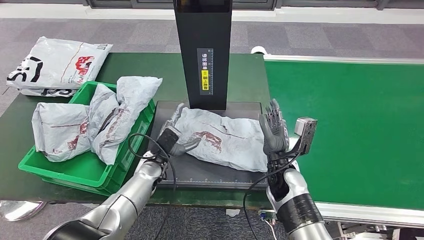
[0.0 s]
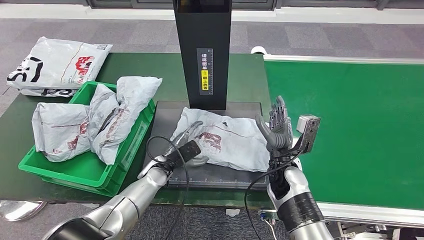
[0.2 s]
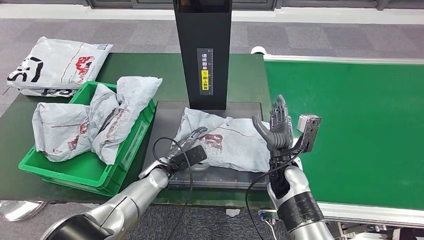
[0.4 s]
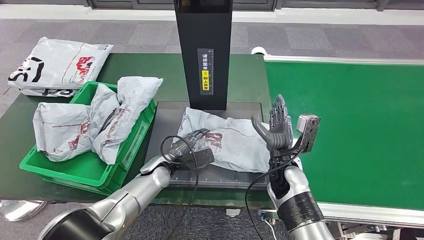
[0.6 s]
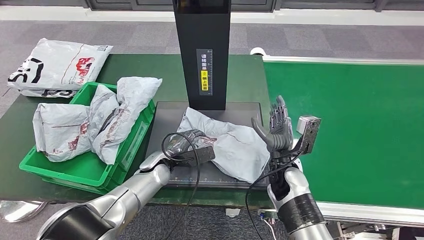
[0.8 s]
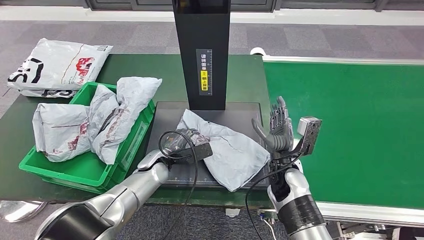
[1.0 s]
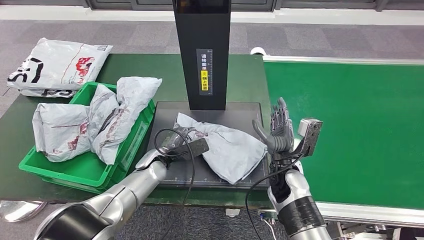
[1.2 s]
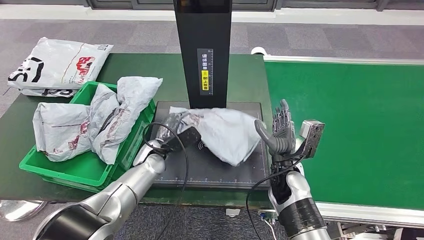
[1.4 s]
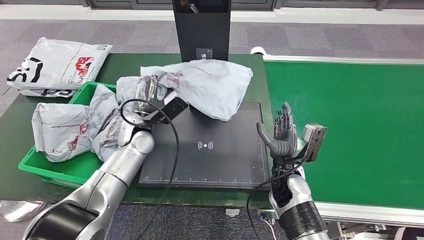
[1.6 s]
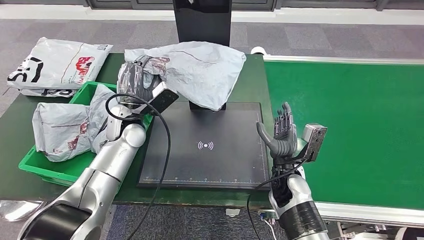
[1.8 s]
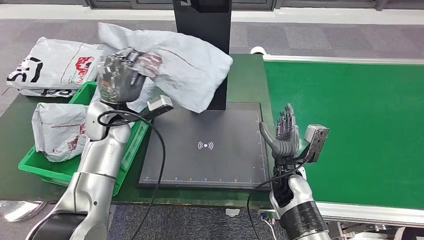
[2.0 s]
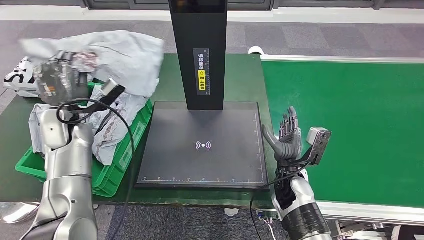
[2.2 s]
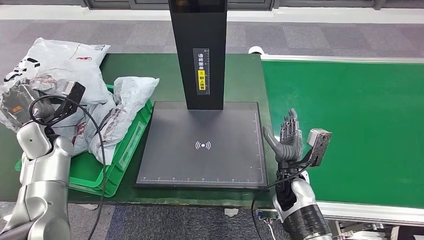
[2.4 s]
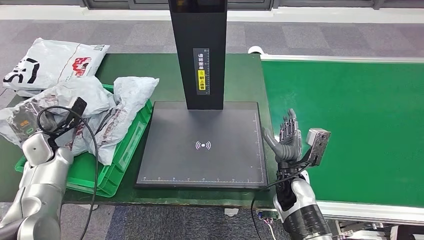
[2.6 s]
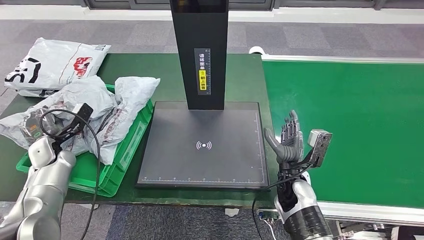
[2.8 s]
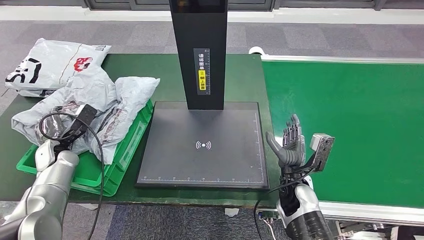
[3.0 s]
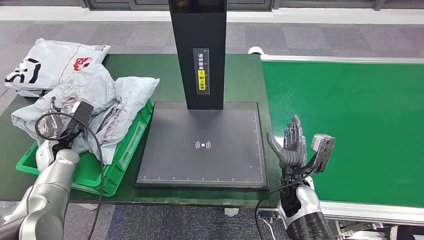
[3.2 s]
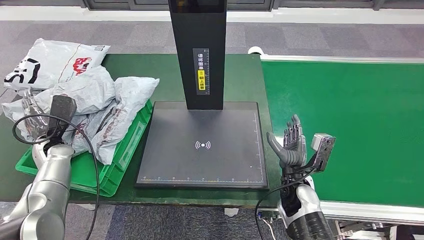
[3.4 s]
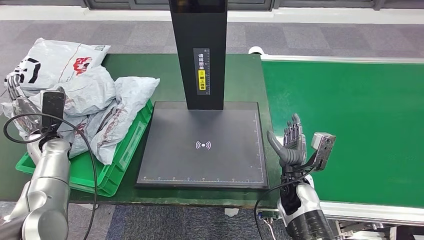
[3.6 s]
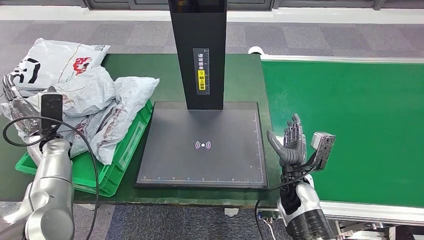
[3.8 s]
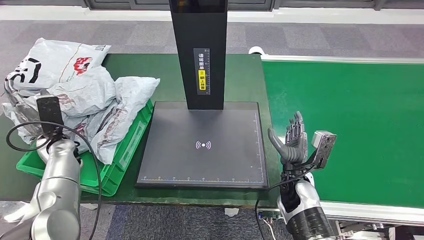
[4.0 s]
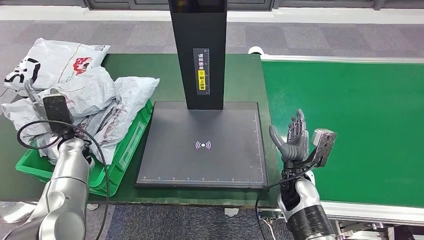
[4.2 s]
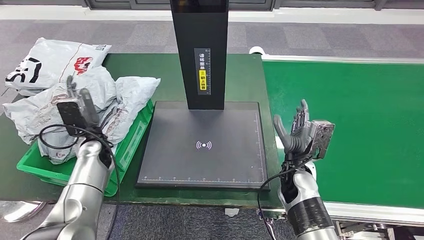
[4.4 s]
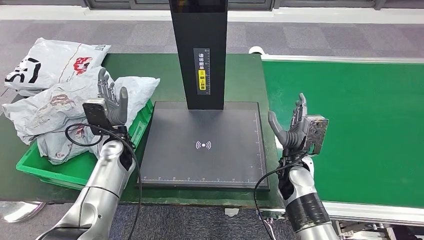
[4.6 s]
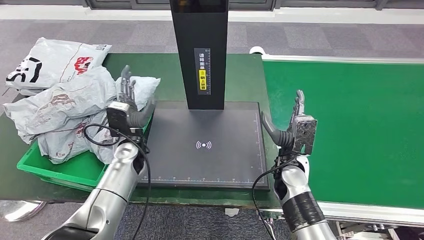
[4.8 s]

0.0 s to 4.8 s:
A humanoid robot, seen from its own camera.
Step, 0.0 to 2.2 s: Pick up the parcel from the inbound machine.
Step, 2.4 to 4.8 s: Place the parcel into the delivery box.

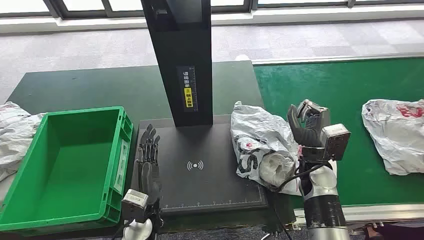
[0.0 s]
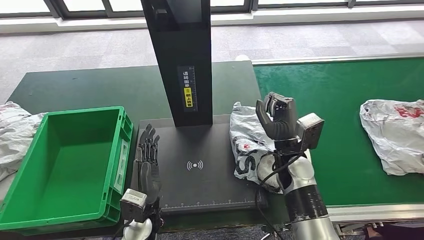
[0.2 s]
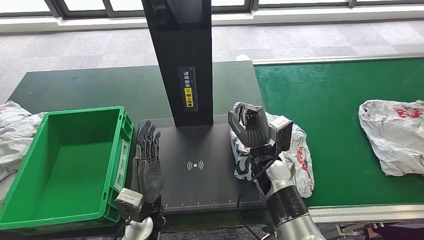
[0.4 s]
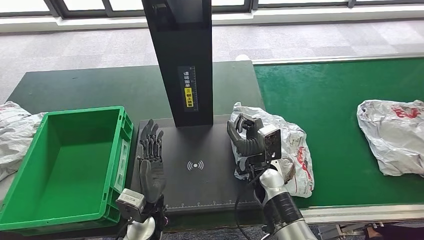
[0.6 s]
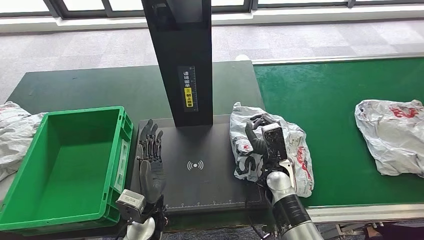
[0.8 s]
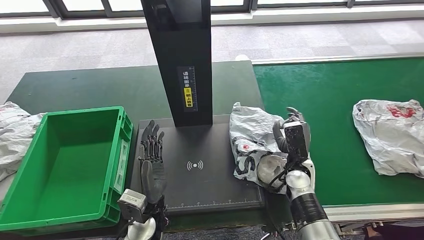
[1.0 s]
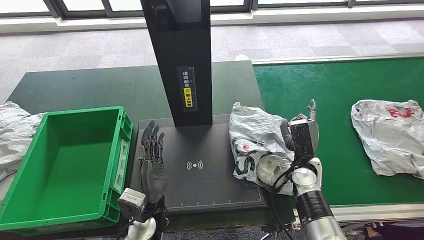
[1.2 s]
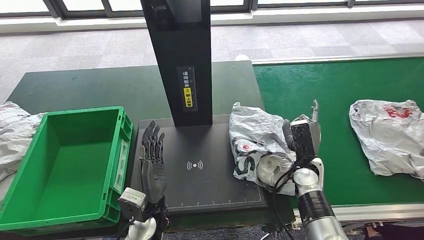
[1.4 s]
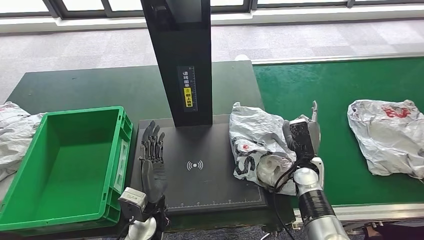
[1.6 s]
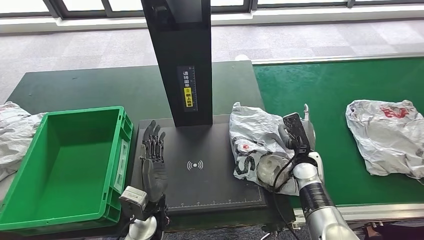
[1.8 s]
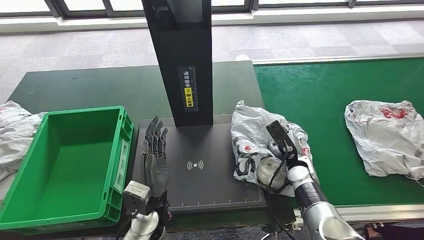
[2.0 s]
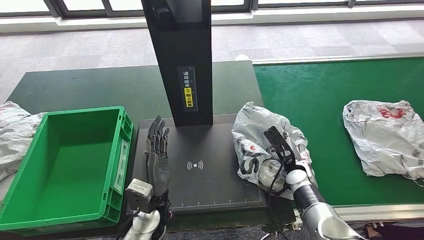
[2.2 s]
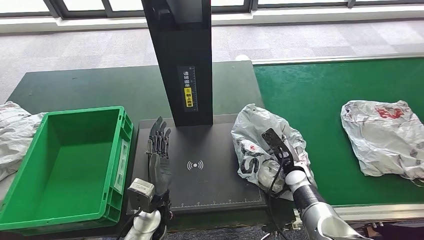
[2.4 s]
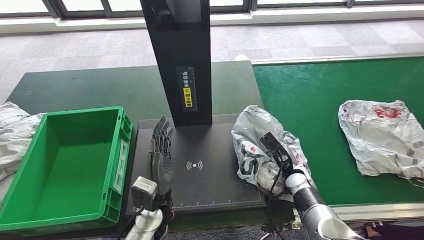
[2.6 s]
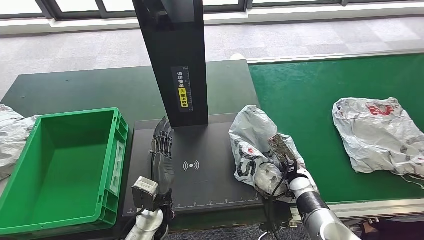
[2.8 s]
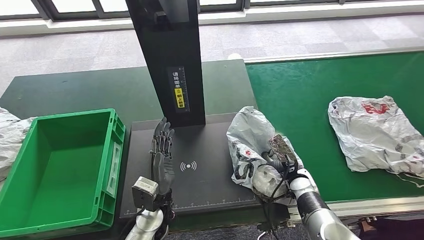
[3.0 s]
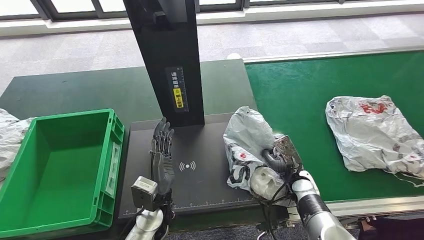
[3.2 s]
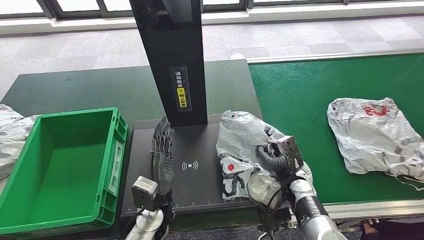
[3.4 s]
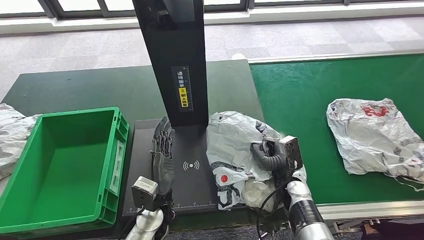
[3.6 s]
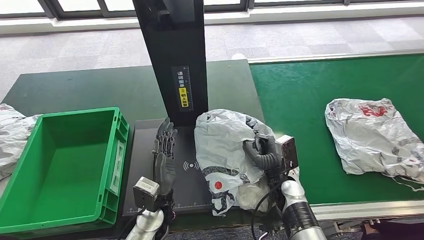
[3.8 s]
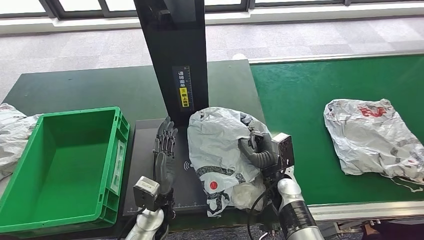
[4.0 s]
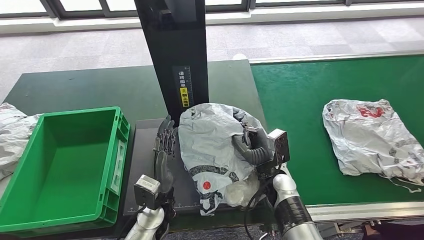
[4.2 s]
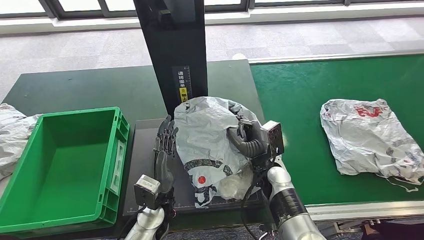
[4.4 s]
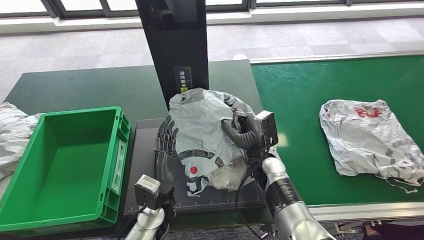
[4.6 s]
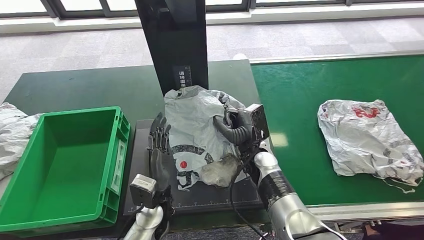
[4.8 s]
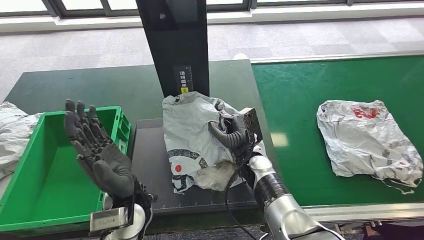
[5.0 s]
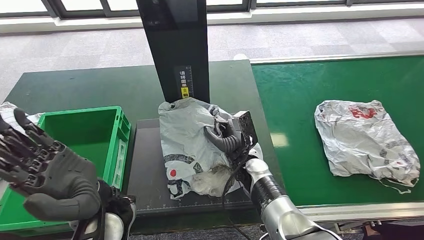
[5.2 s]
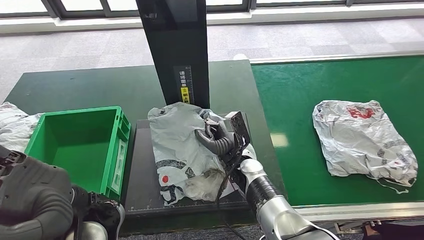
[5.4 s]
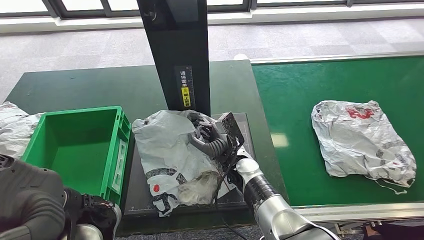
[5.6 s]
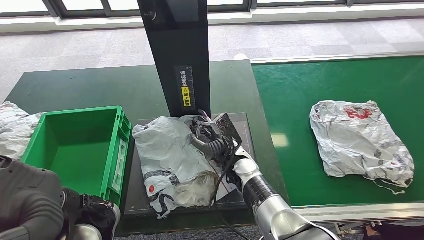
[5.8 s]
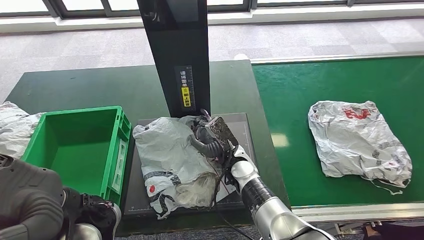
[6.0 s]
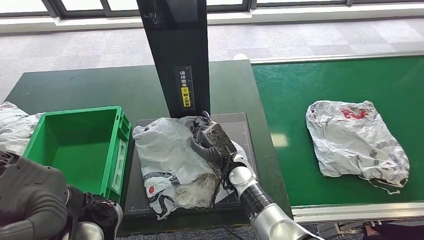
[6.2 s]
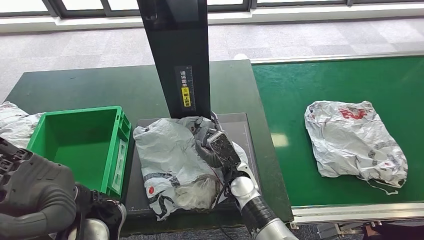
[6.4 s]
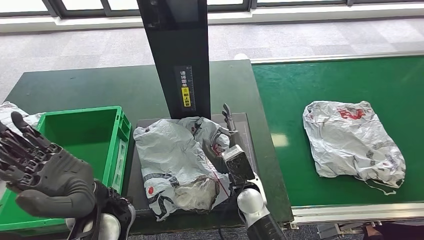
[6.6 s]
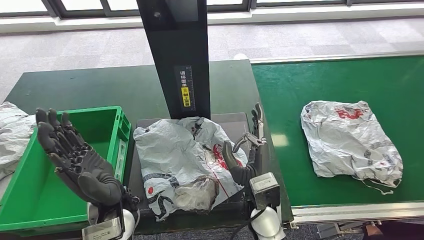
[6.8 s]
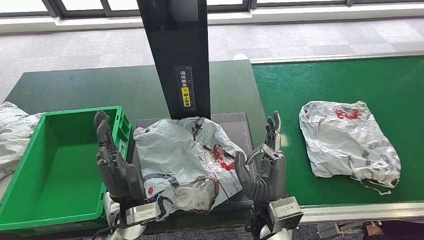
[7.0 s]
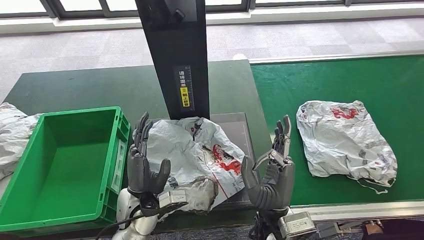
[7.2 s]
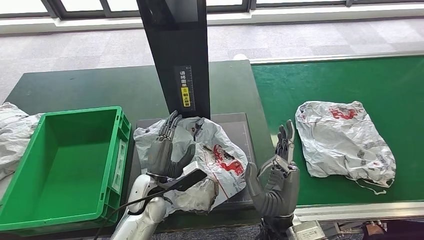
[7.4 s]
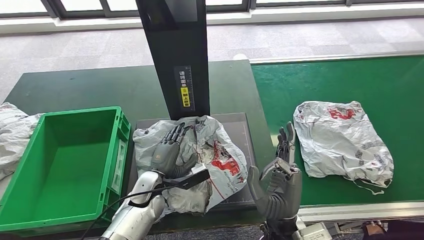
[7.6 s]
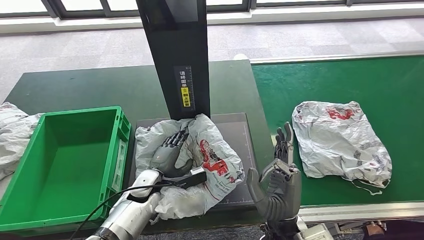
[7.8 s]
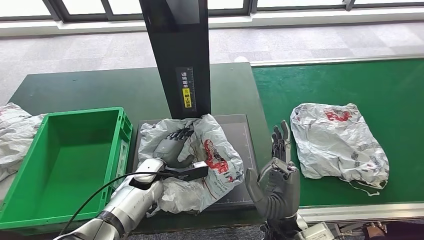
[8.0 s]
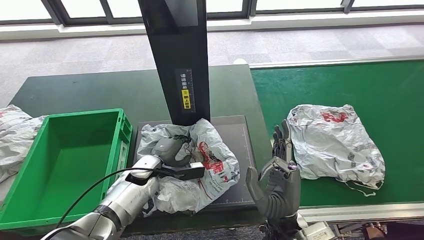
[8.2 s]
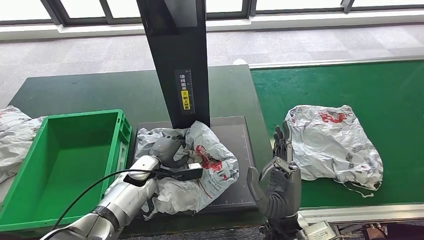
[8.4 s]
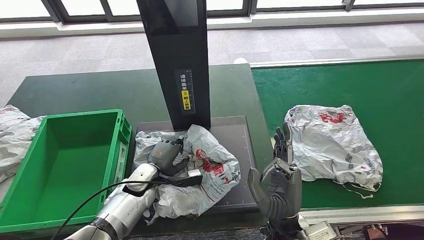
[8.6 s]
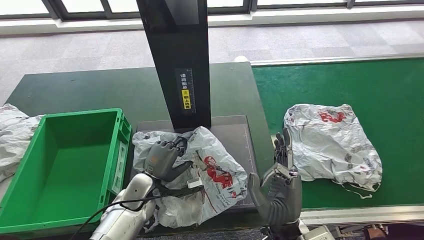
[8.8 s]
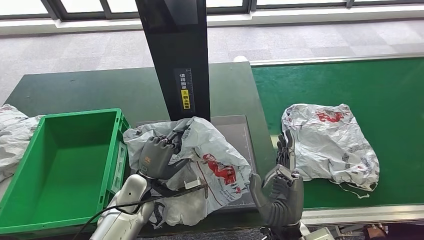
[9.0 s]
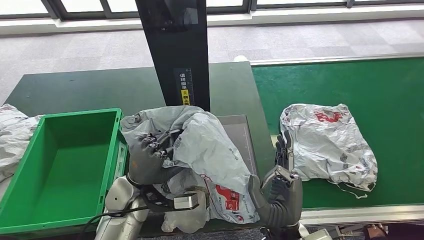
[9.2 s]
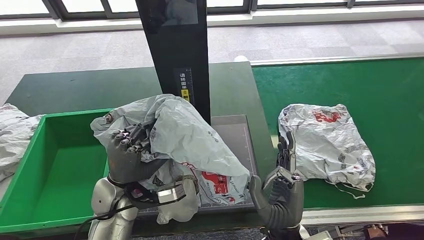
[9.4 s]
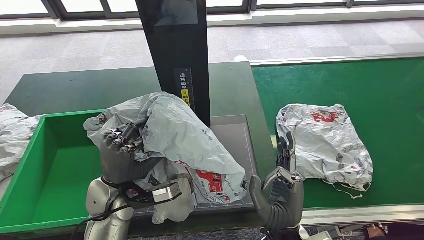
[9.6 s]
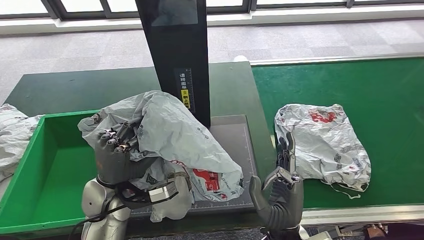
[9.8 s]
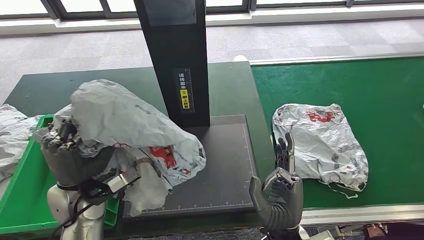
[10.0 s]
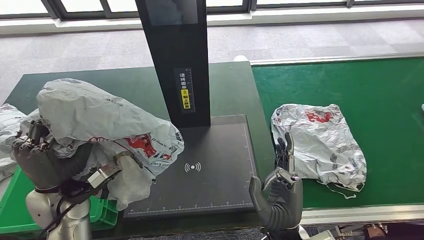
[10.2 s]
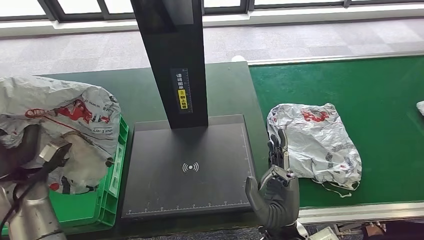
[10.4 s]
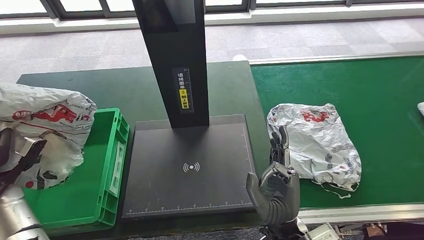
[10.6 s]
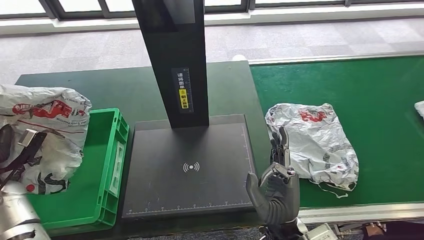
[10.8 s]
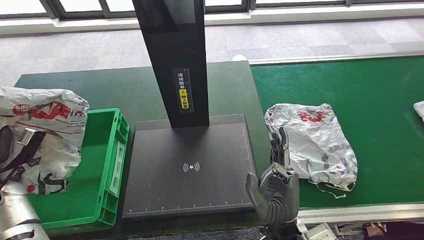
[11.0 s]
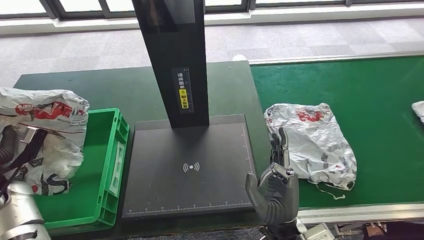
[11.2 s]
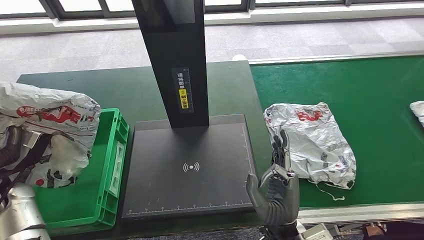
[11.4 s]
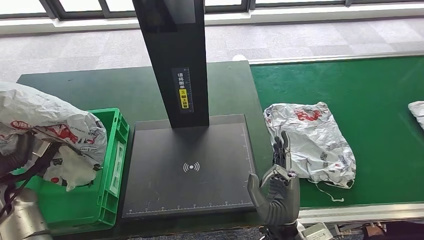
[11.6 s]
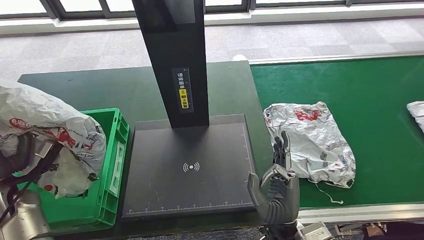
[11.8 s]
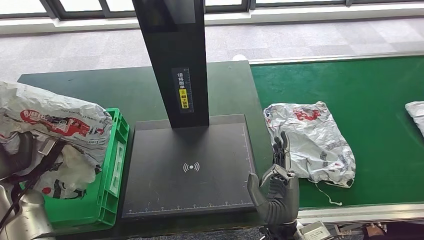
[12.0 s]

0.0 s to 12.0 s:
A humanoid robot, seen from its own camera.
Step, 0.0 to 4.4 s: Take the parcel off the conveyor belt.
Step, 4.6 to 7.4 s: Place the parcel onto the inbound machine.
Step, 7.8 to 9.6 s: Pick up the parcel from the inbound machine.
